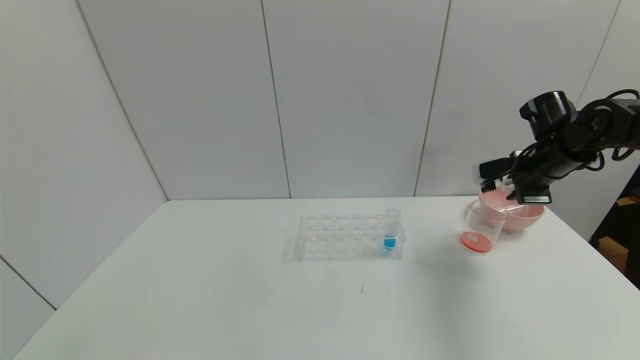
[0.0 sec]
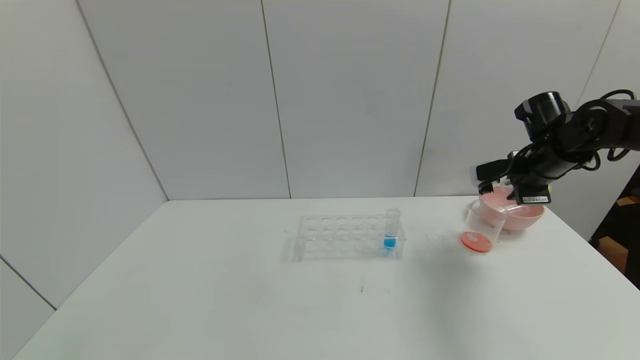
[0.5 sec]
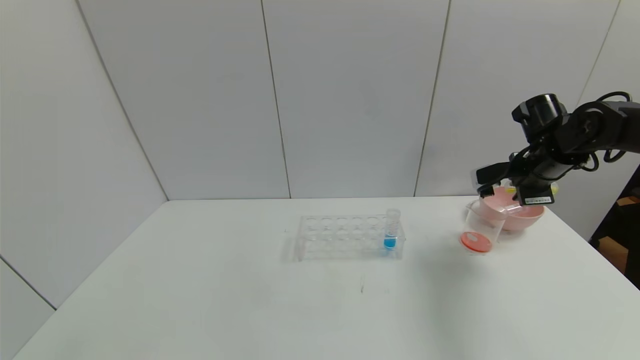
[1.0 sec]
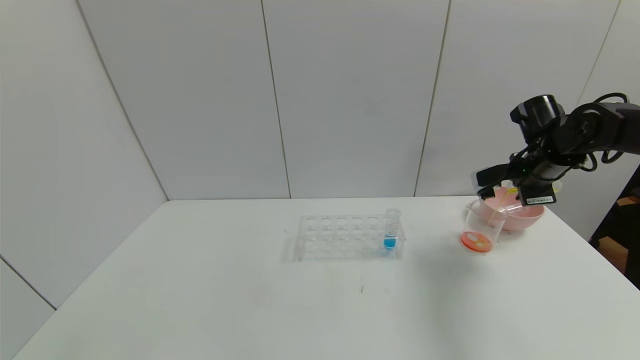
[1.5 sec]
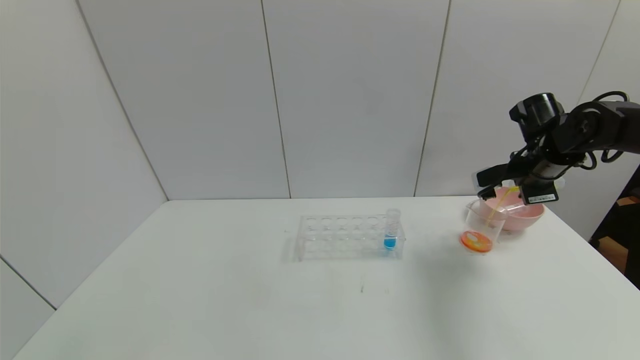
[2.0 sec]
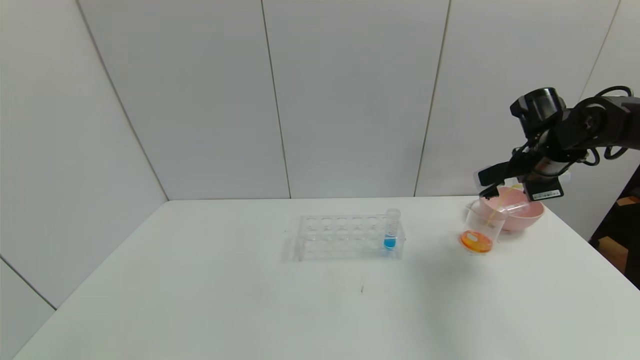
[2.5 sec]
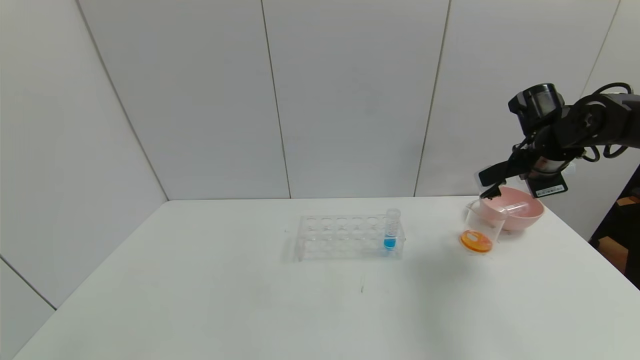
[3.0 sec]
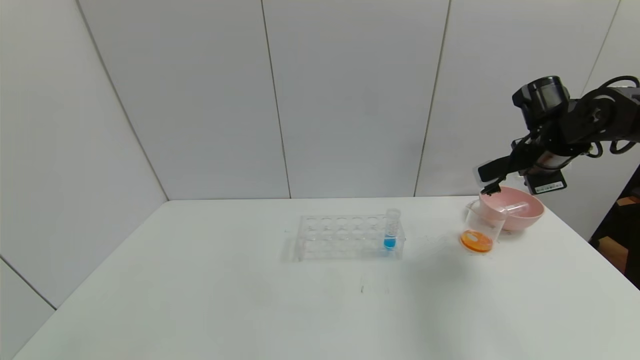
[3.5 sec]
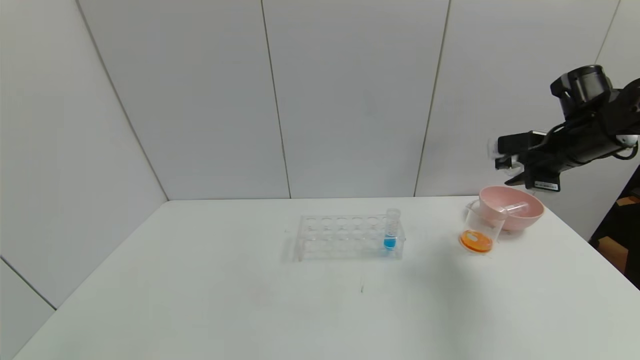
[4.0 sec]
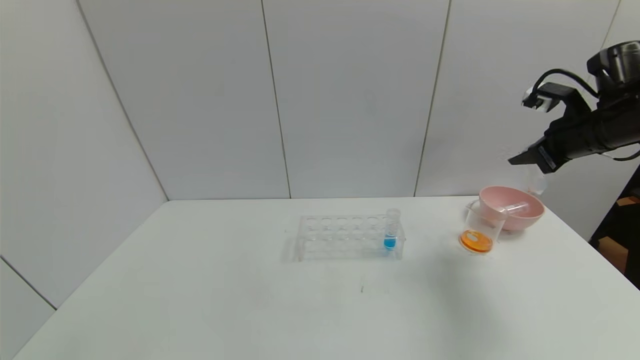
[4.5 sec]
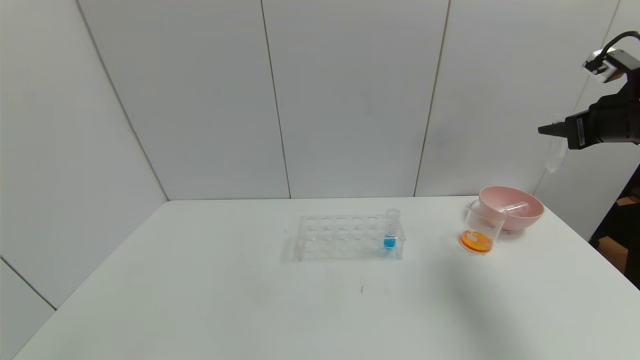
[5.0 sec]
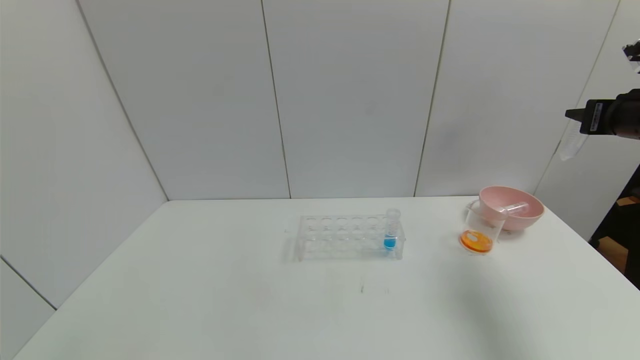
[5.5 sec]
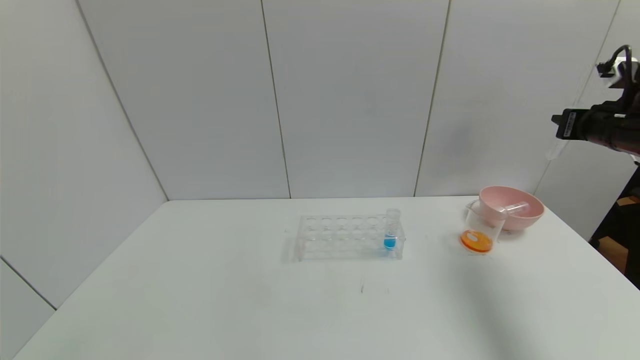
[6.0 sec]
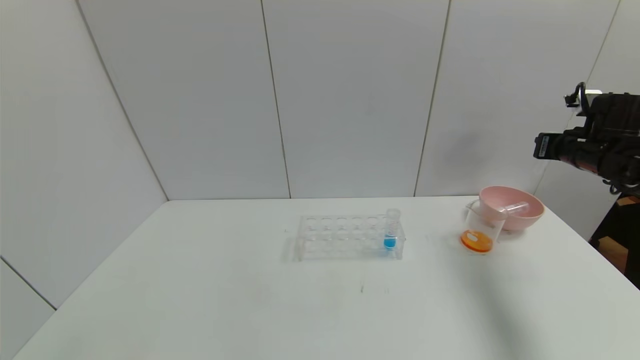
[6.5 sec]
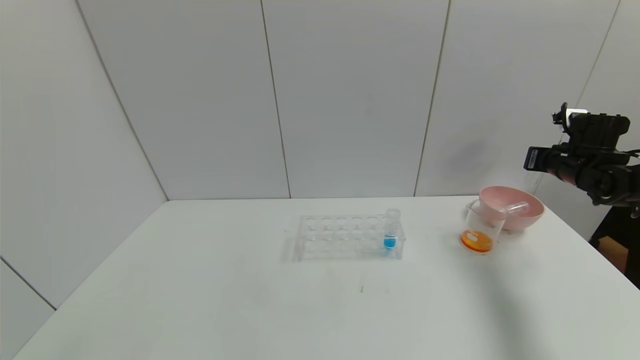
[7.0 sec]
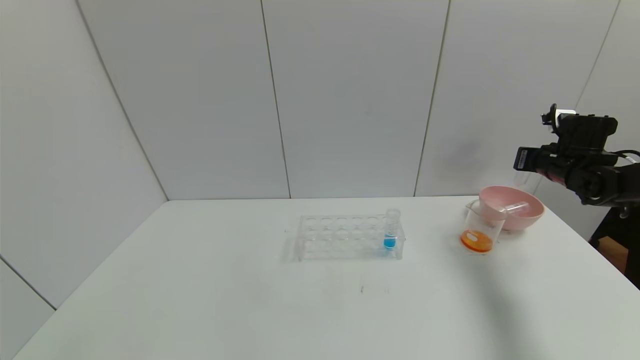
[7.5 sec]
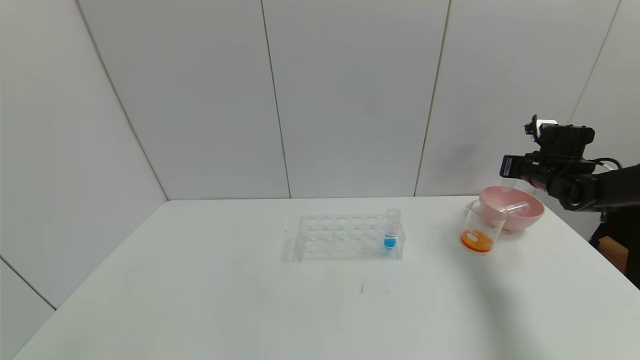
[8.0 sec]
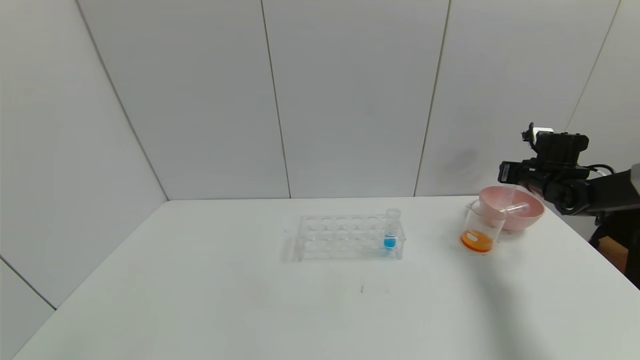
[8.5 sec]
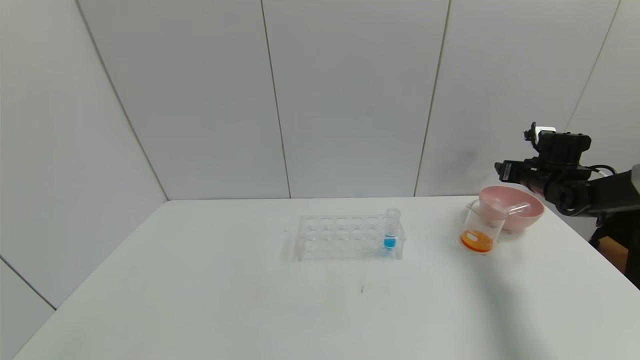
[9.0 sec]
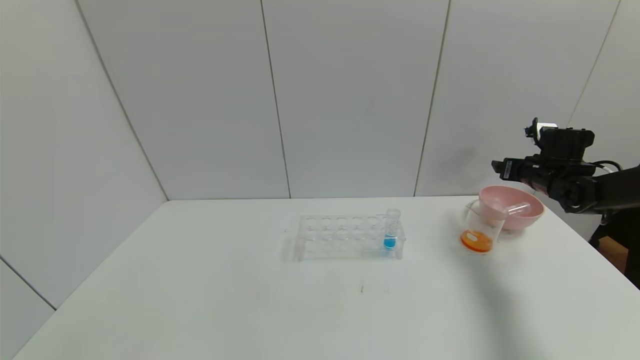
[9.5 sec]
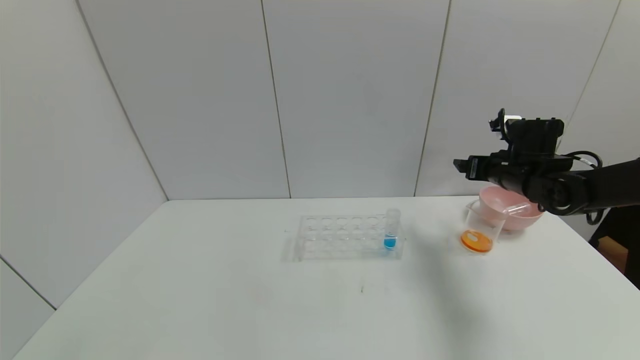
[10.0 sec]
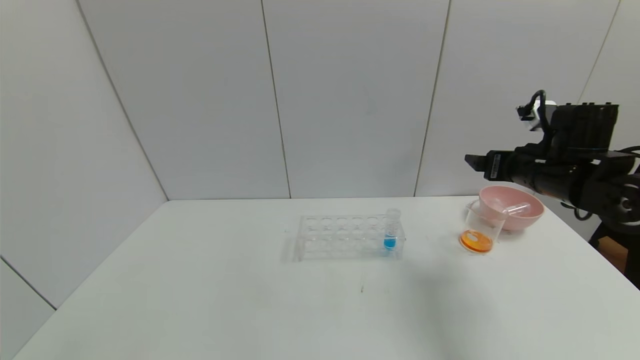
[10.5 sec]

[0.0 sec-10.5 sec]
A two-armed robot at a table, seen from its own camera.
Task of the whole recording: pick up the test tube with yellow pigment and the test tube with red pigment by grippers and pour them into the beaker.
Step, 0.0 sec to 3.0 sec: Pour the yellow reagent into the graduated cylinder with the right gripper.
Step, 3.5 sec to 8.5 sec: Place the test tube into the bowl with the right gripper.
0.0 sec to 2.0 sec: The grippers make only small movements.
4.0 sec to 6.5 sec: The right gripper travels to the right by about 5 cm.
6.5 sec to 8.5 sec: The right gripper goes roughly 10 cm downward and forward.
8.5 sec to 10.5 sec: The right gripper travels backward, to the left and upward by roughly 20 cm, and opens up.

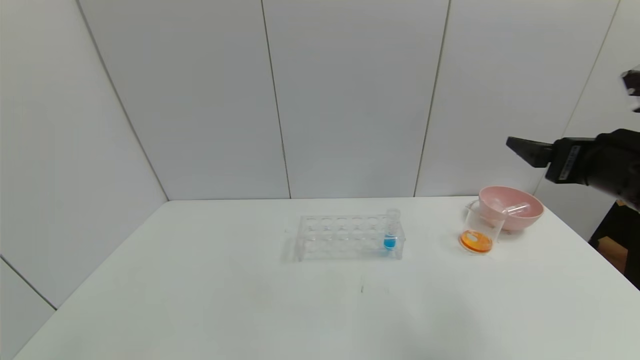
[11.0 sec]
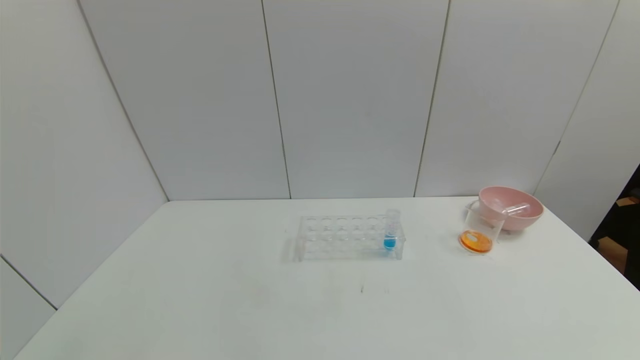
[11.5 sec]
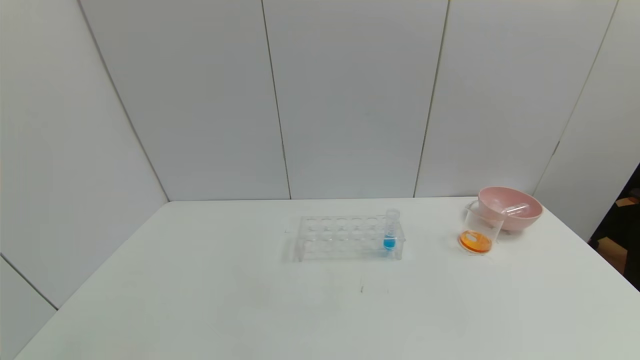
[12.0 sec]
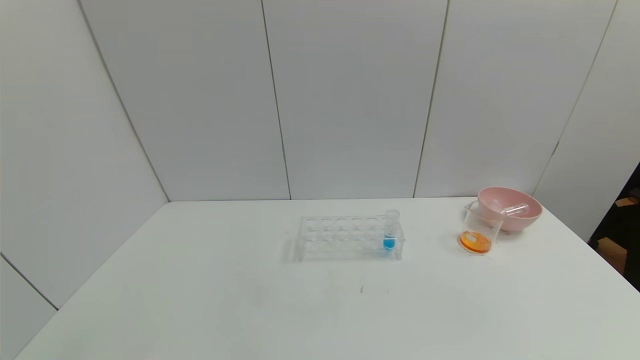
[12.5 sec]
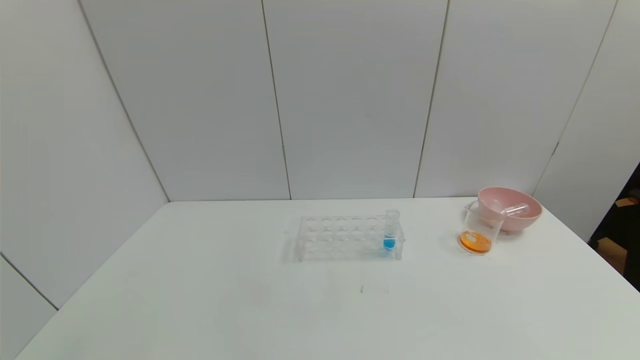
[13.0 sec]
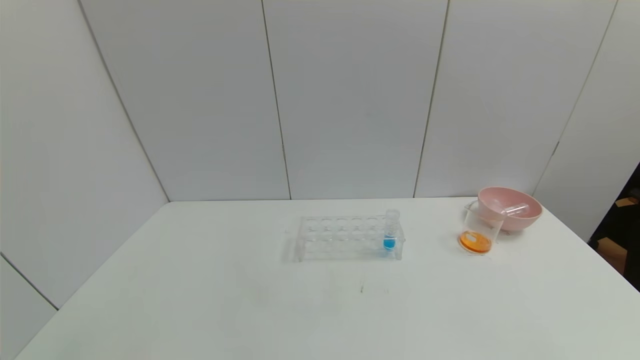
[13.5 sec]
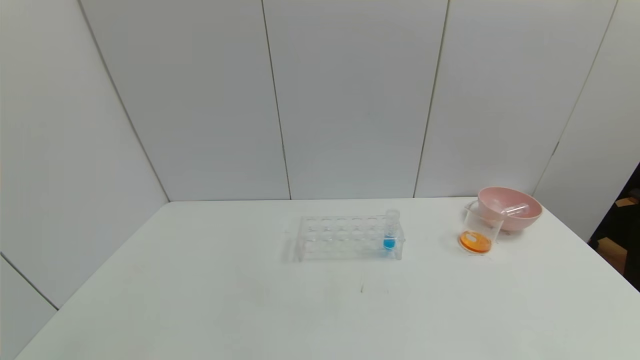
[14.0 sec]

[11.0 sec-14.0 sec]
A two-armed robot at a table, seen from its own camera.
Task of the whole recording: pick up the test tube with yellow pigment and the test tube with red pigment by grippers and pour them into the beaker.
11.0 sec to 12.5 sec: The right gripper is displaced backward by approximately 30 cm.
